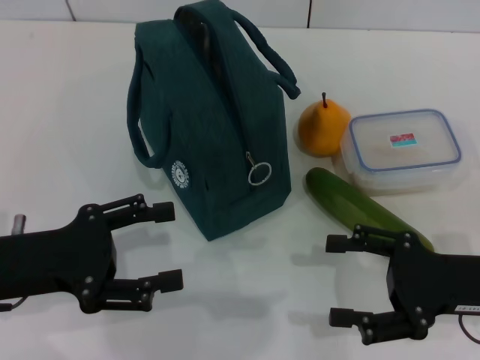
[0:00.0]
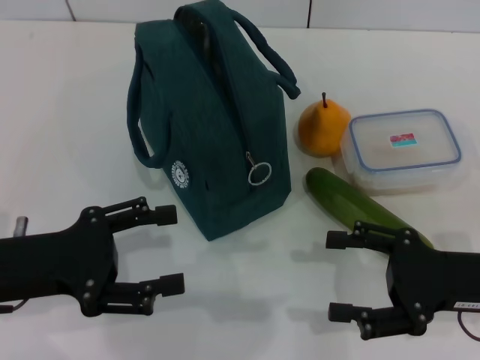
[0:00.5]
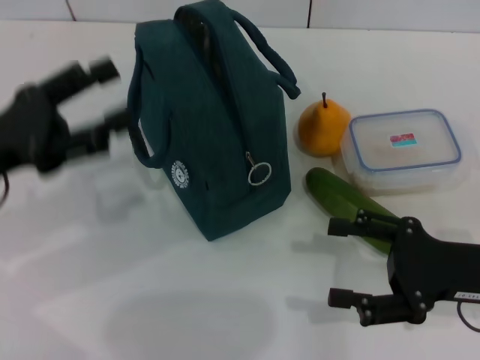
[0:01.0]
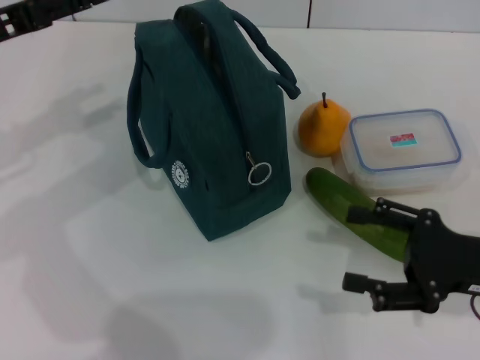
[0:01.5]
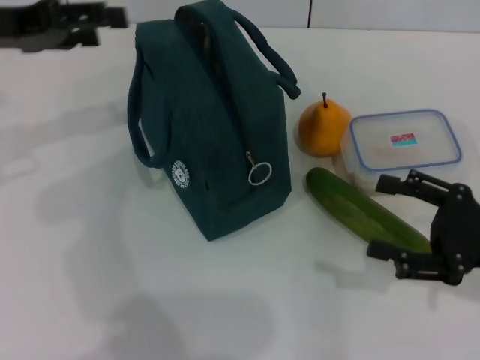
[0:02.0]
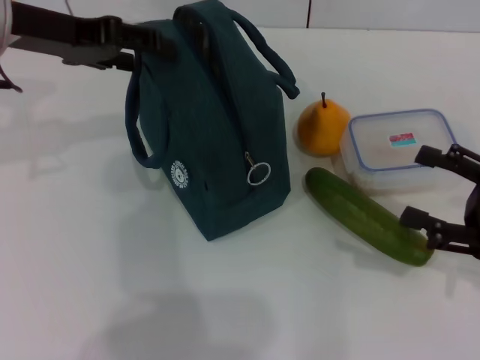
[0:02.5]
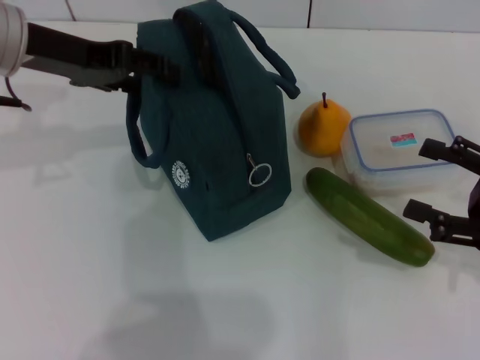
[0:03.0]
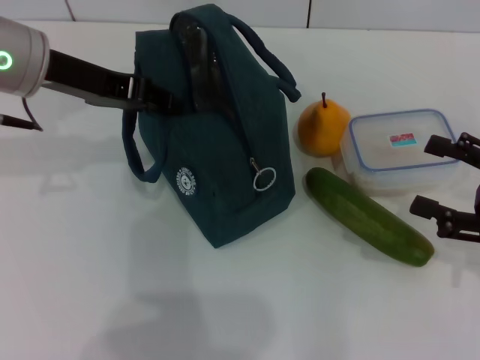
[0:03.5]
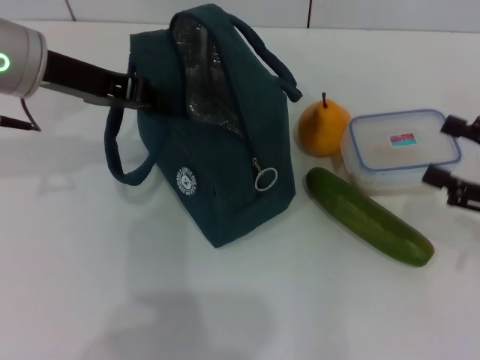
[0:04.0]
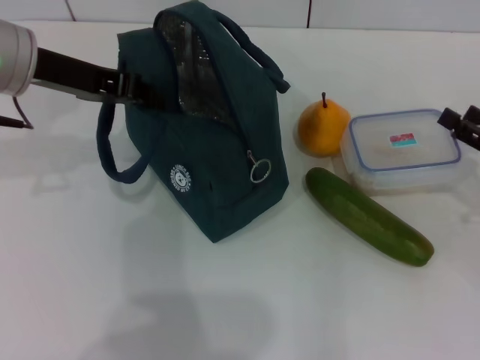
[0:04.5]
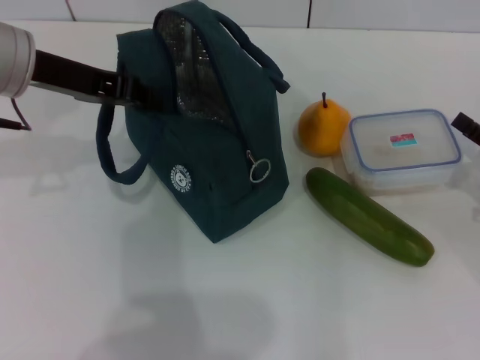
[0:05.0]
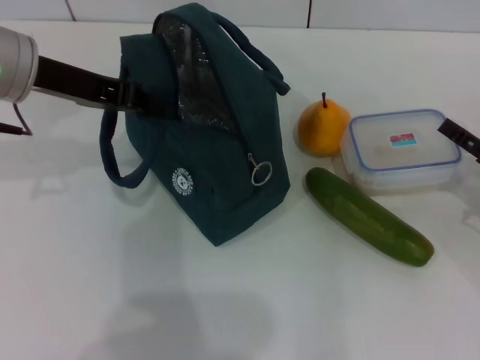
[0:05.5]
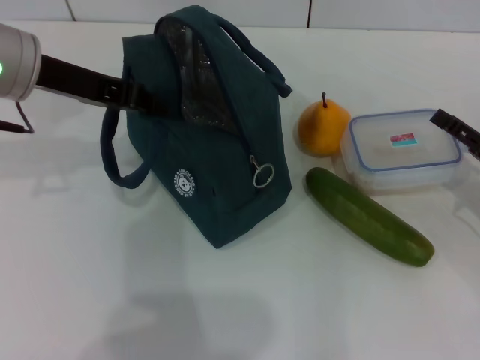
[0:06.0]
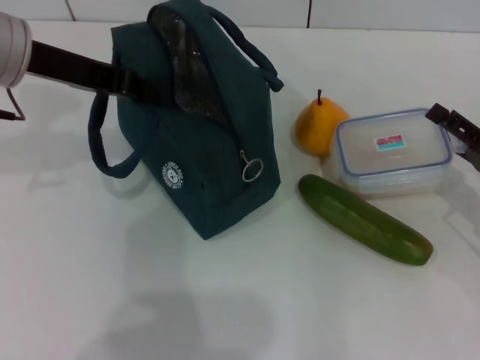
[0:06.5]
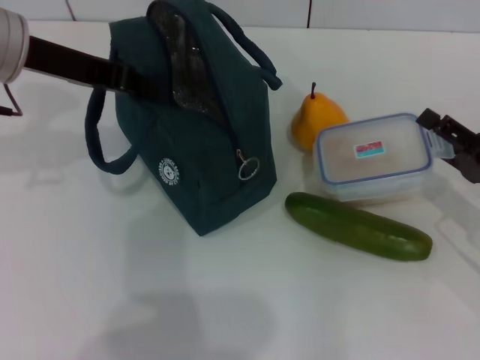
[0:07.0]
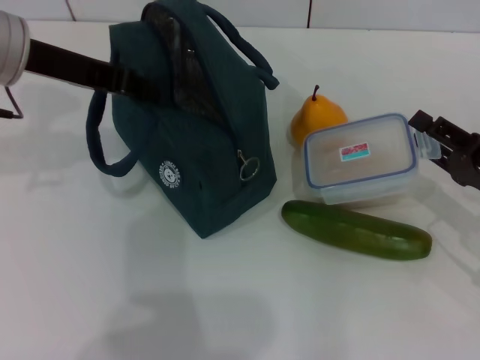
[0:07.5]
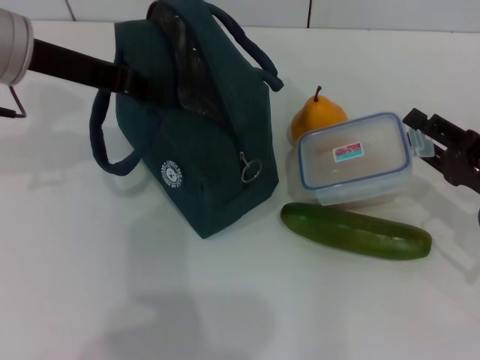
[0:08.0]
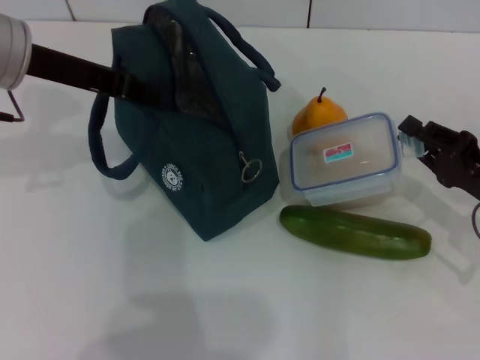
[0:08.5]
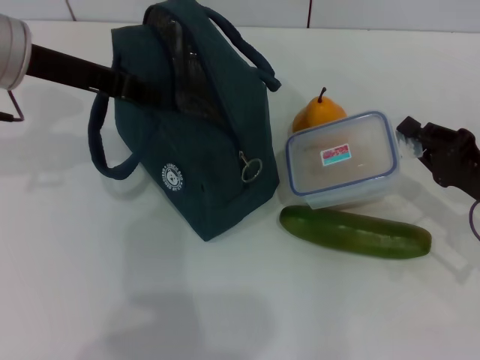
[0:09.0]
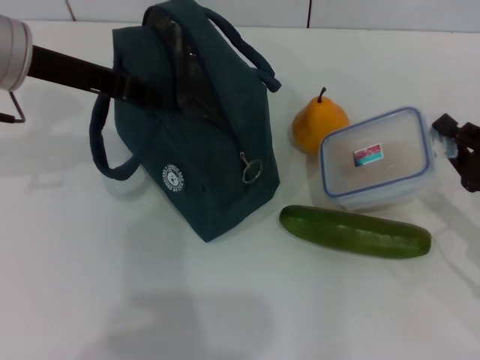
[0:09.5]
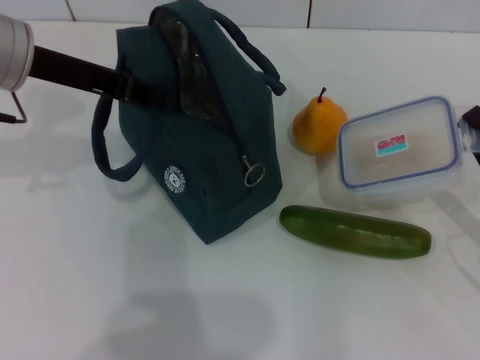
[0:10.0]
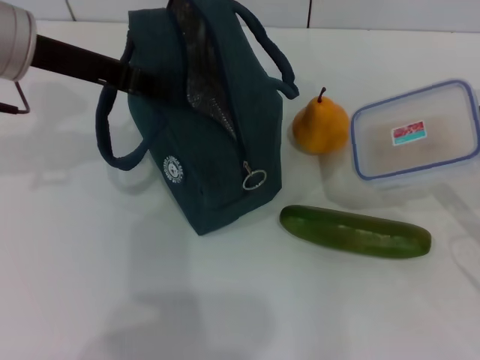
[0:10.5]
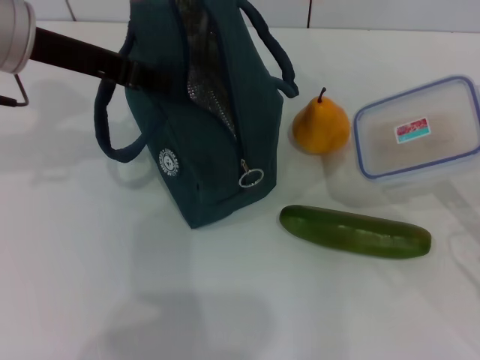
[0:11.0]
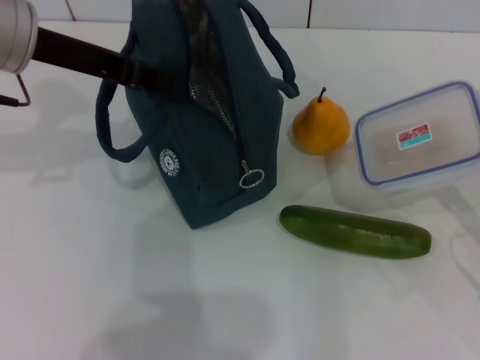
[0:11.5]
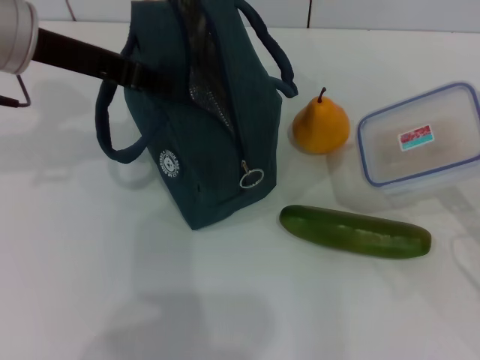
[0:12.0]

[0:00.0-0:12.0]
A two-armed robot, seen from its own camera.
Step, 0:00.0 to 0:03.5: Hold the lunch bag with your left hand.
Step, 0:04.0 to 0:08.5: Pick up the lunch box with your right hand.
0:00.0 to 0:02.0: The left gripper moves forward and upward, about 20 cm.
0:02.0 to 0:04.0: The left gripper is displaced to the right by some 5 cm, and closes up.
0:04.0 to 0:06.0: The right gripper goes approximately 5 cm downward.
0:06.0 to 0:08.0: The right gripper closes up.
0:08.0 to 0:10.0: The right gripper closes its fingers.
0:10.0 to 0:12.0: The grippers make only small movements.

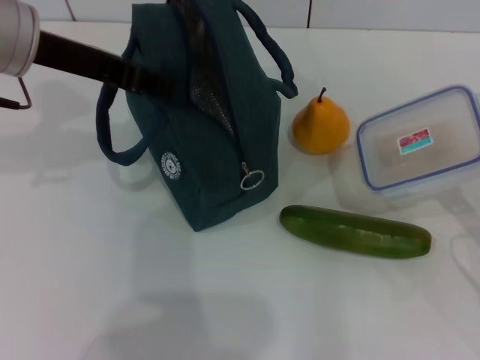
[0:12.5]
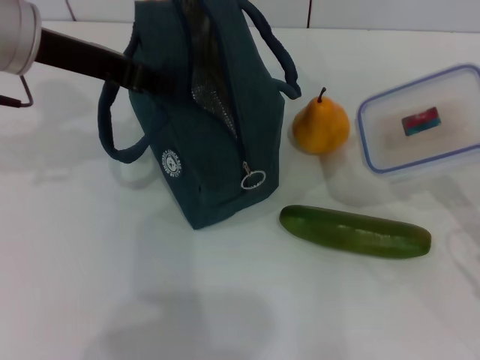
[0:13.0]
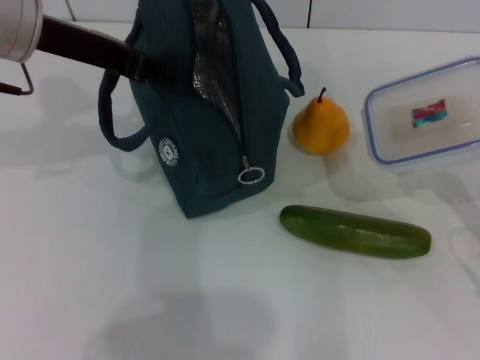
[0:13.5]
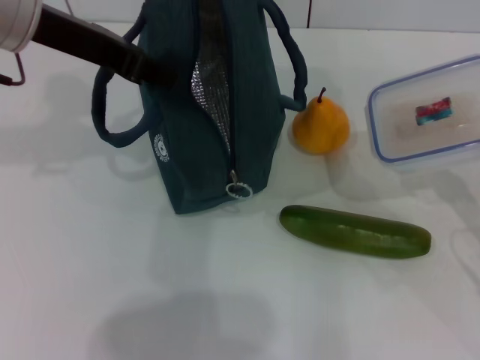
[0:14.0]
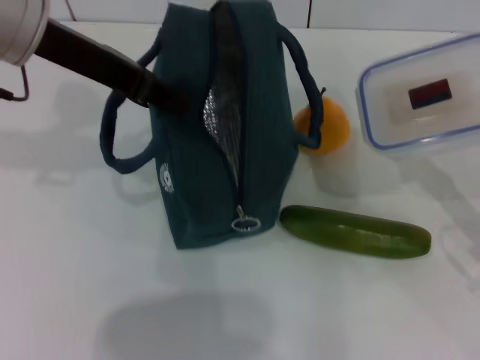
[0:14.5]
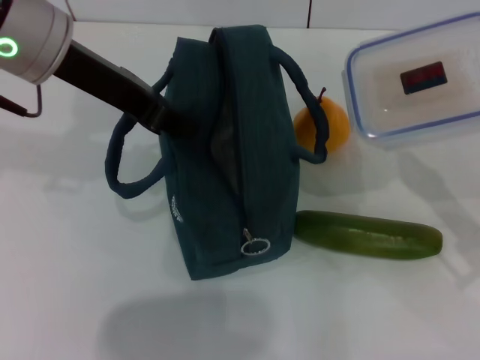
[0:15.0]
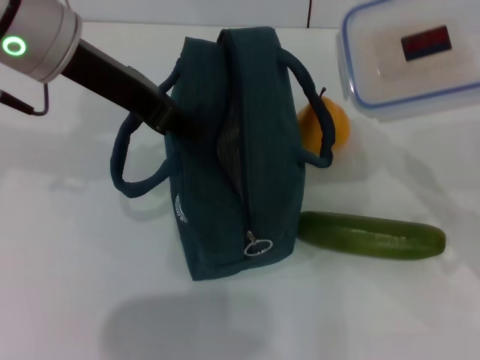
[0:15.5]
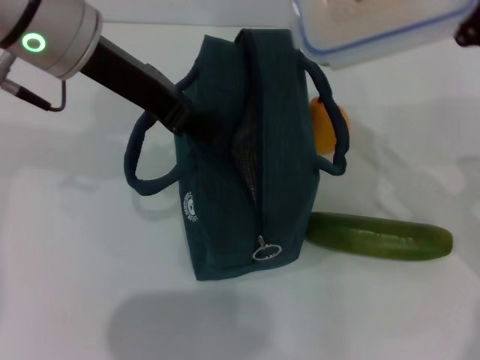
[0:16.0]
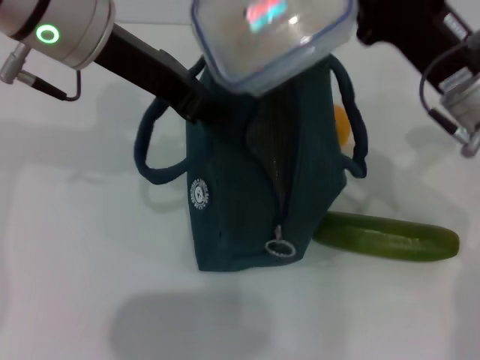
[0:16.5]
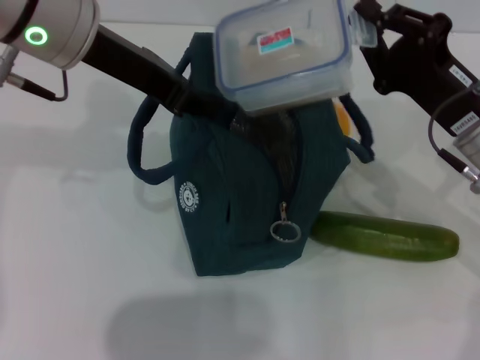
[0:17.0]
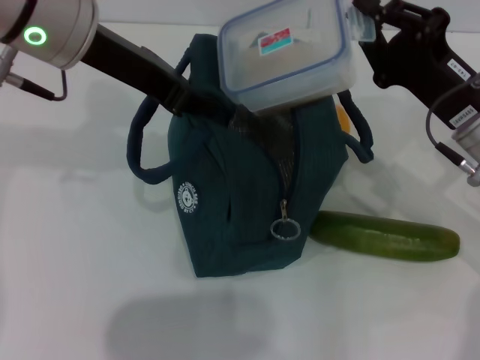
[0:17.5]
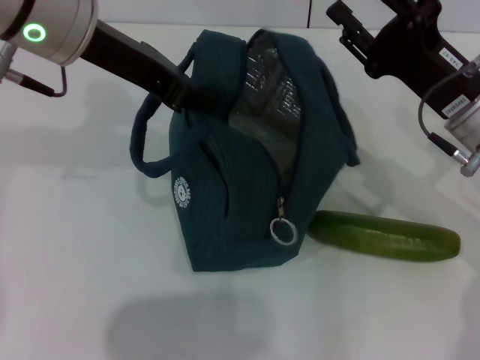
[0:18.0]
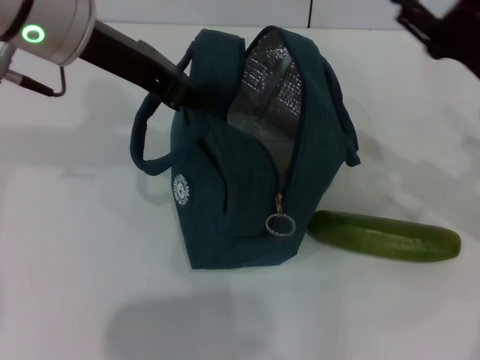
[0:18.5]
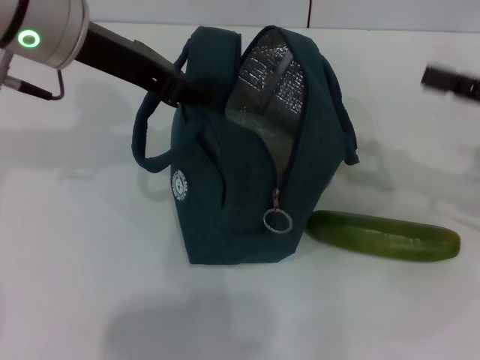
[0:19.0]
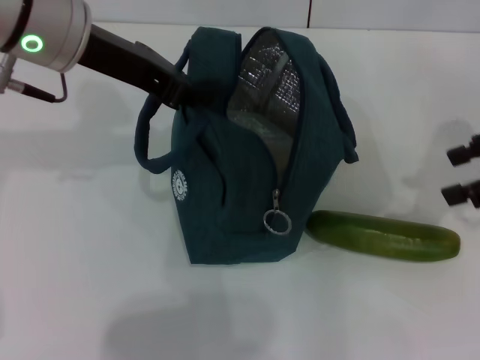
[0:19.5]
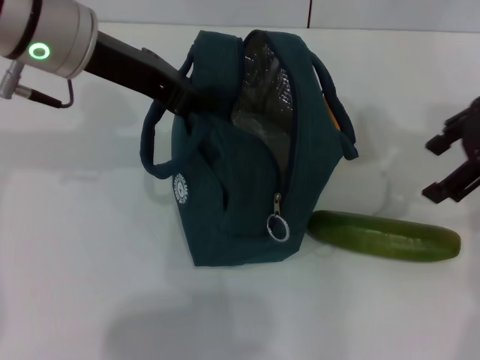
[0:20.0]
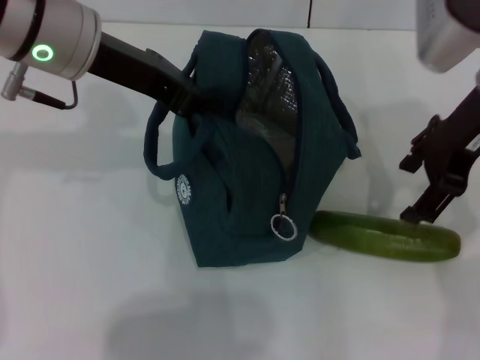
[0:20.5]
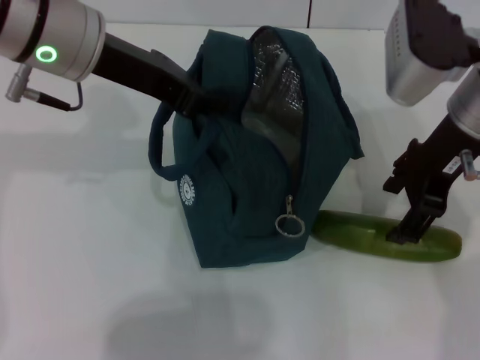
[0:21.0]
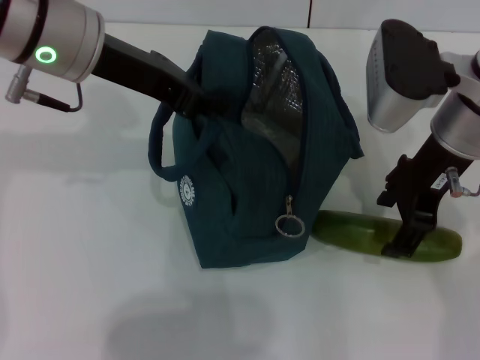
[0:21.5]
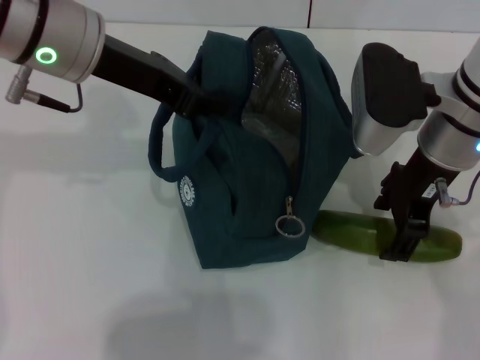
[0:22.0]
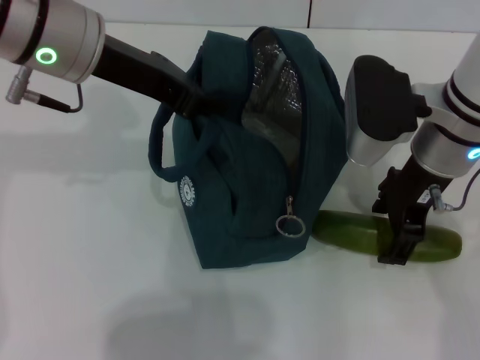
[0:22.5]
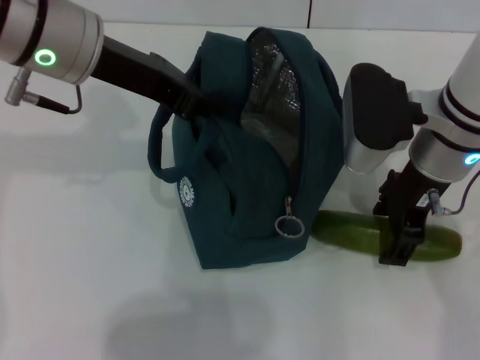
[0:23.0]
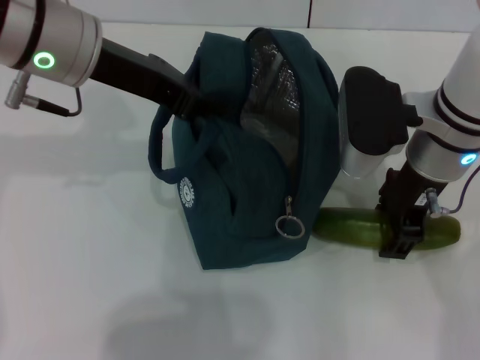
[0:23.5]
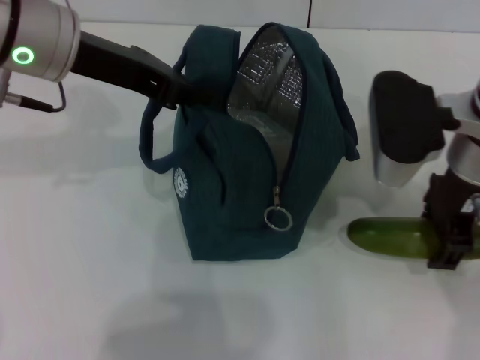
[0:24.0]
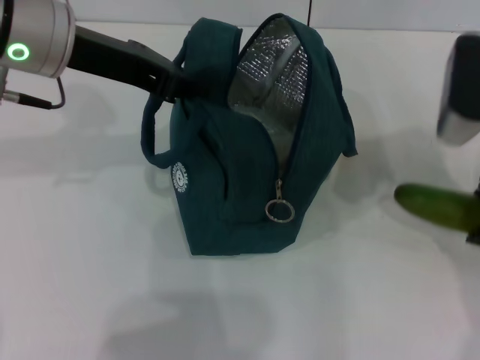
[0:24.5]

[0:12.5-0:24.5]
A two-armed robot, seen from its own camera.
Step, 0:12.5 to 0:17.5: Place the lunch box into the lunch bag with your right hand.
Step, 0:18.0 to 0:23.0: Pick up the cucumber with your right hand.
0:12.5 to 0:14.5: The grippers move only a little.
0:14.5 to 0:16.5: The right gripper shifts roughly 15 cm to the left, forward and upward.
0:16.5 to 0:18.5: The right gripper shifts about 5 cm to the right, and opens.
0:18.5 to 0:20.5: The right gripper heads upward and to the left, covering some 10 cm.
0:20.5 to 0:22.5: The right gripper shifts some 5 cm downward.
0:22.5 to 0:24.5: The right gripper moves to the right, about 5 cm.

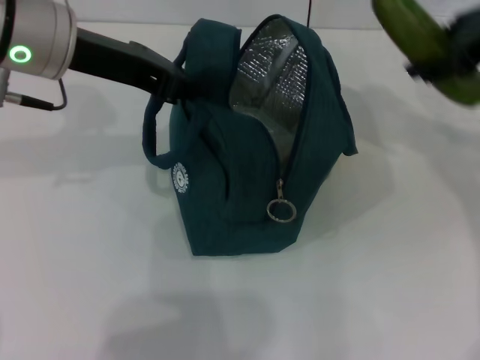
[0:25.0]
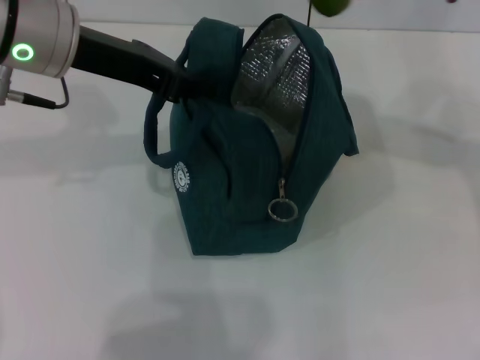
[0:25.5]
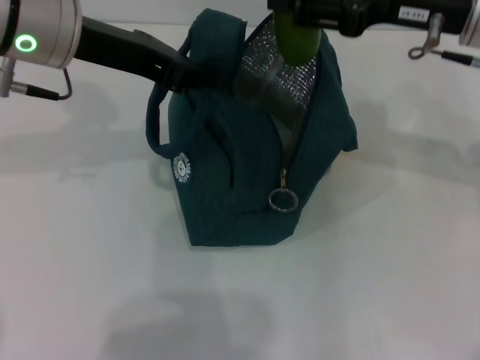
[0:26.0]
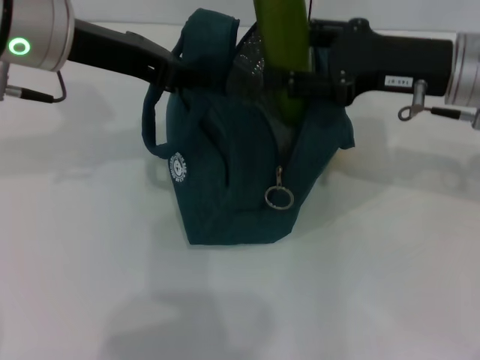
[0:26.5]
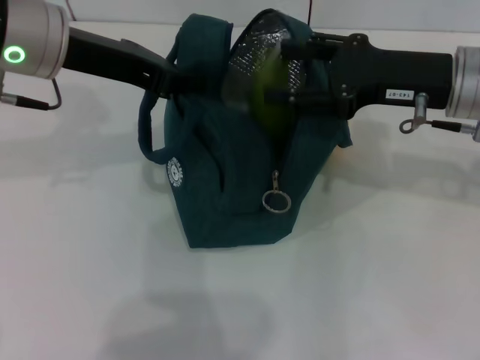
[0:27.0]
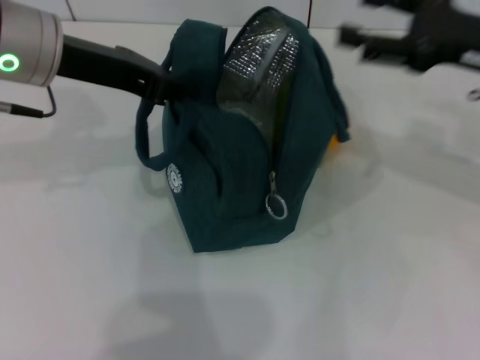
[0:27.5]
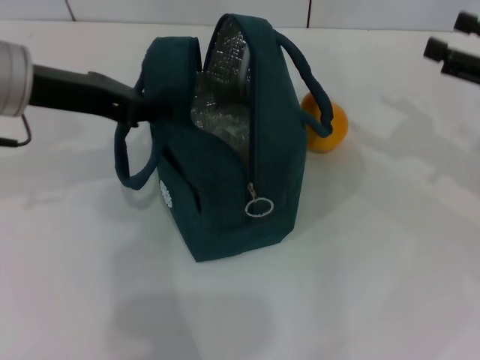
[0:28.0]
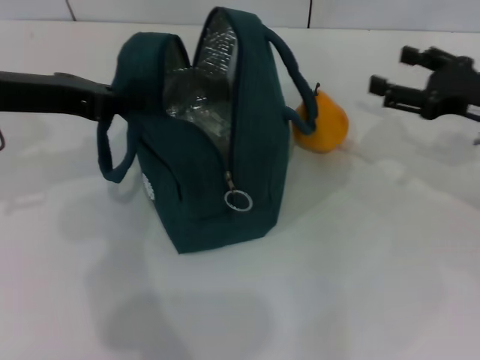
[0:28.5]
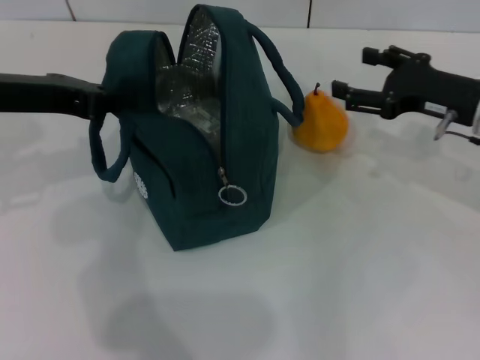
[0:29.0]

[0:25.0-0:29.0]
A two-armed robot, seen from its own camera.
Step, 0:25.0 to 0:27.0: Put the cucumber into the lunch bag with your right hand.
0:25.0 to 0:27.0: The right gripper shifts approximately 10 cm downward.
0:27.0 to 0:29.0: The right gripper shifts some 10 cm downward and to the right. The left gripper moves to the left, some 5 cm.
